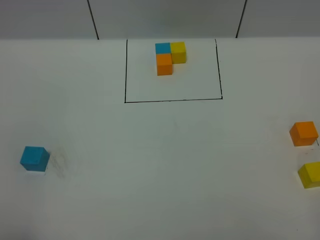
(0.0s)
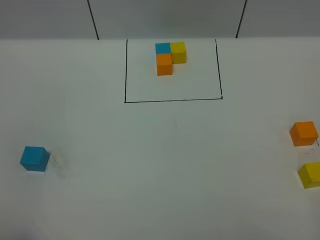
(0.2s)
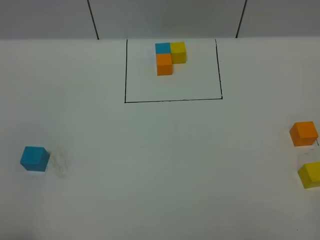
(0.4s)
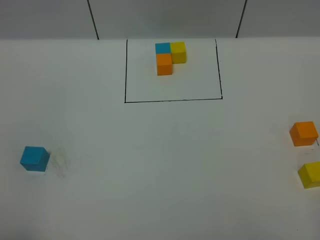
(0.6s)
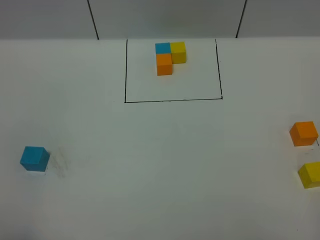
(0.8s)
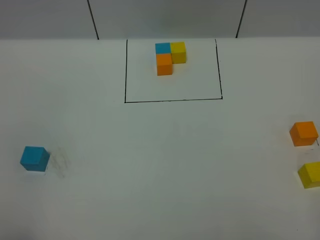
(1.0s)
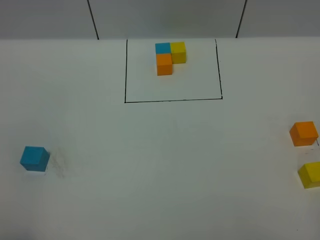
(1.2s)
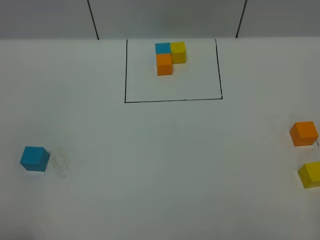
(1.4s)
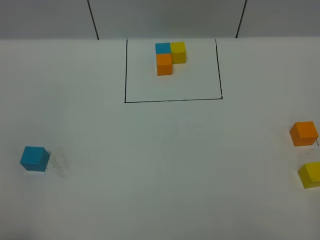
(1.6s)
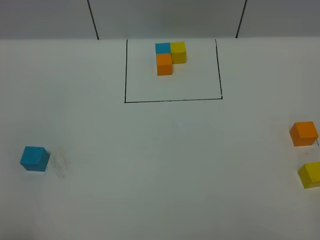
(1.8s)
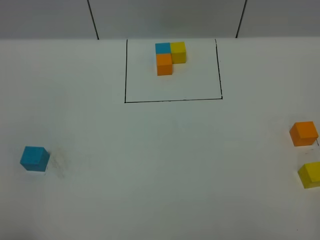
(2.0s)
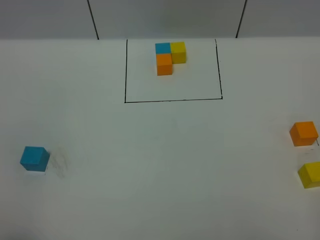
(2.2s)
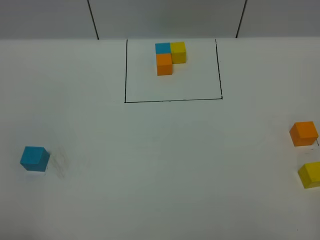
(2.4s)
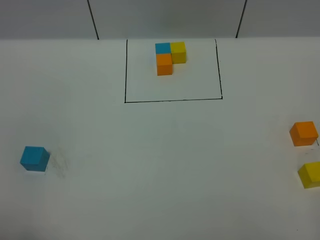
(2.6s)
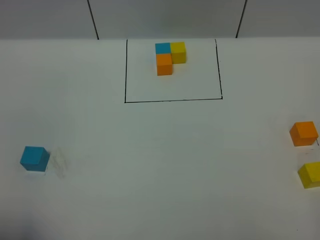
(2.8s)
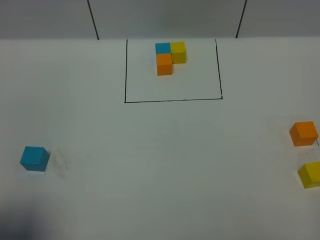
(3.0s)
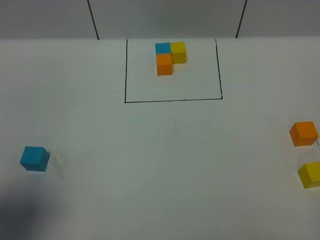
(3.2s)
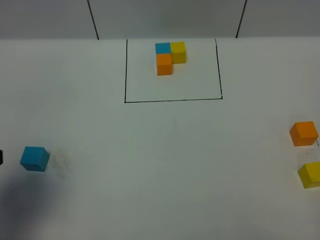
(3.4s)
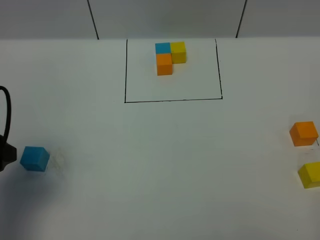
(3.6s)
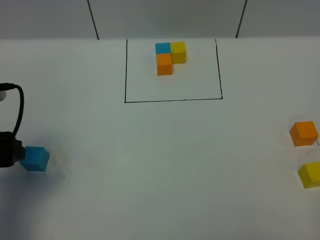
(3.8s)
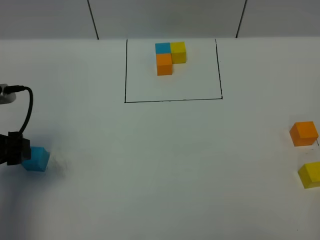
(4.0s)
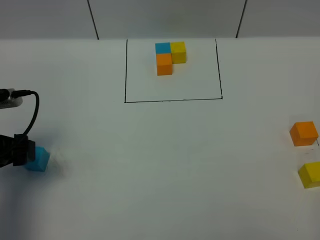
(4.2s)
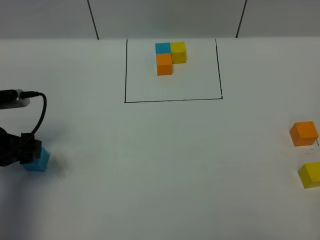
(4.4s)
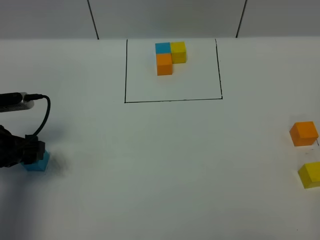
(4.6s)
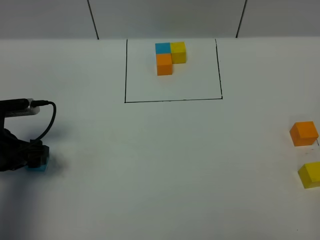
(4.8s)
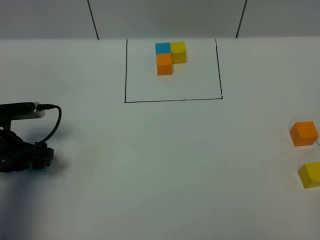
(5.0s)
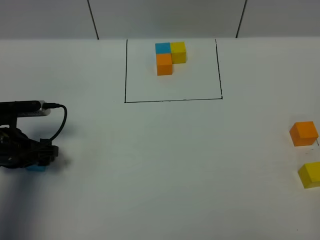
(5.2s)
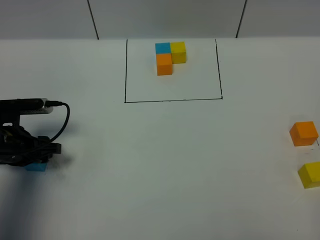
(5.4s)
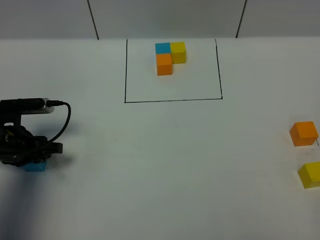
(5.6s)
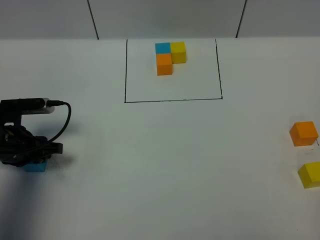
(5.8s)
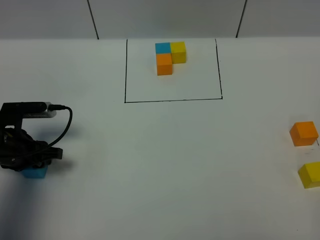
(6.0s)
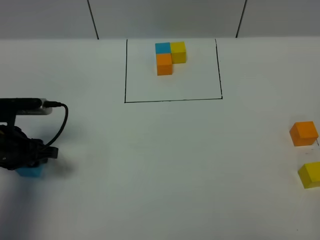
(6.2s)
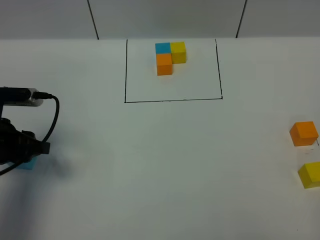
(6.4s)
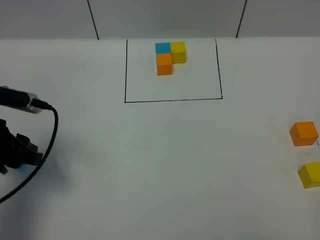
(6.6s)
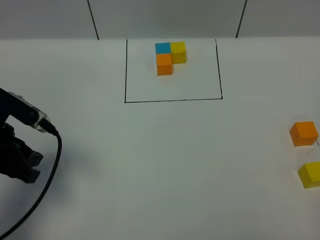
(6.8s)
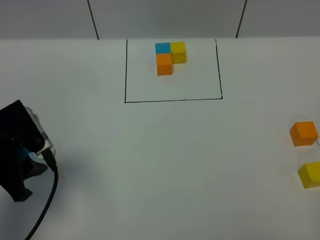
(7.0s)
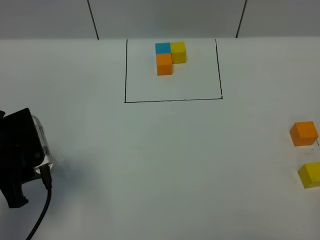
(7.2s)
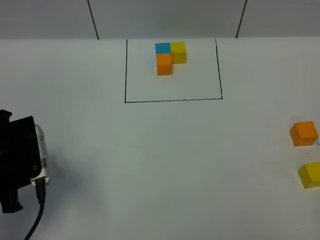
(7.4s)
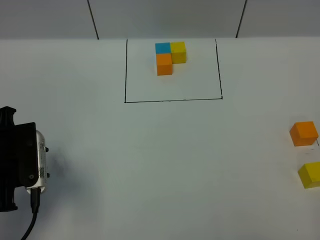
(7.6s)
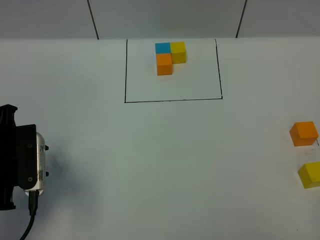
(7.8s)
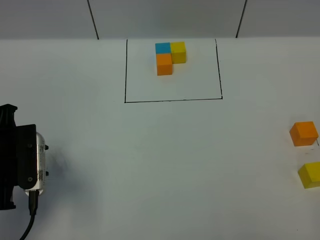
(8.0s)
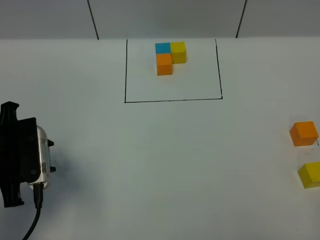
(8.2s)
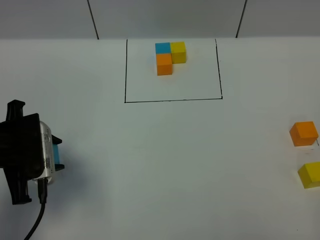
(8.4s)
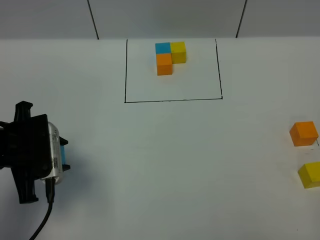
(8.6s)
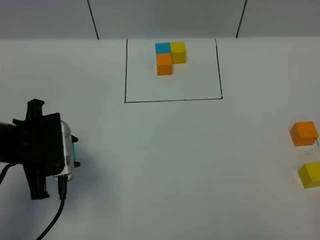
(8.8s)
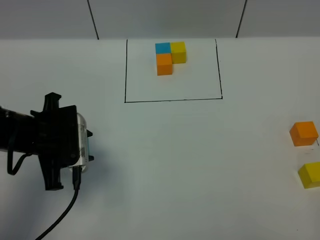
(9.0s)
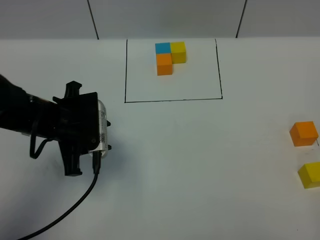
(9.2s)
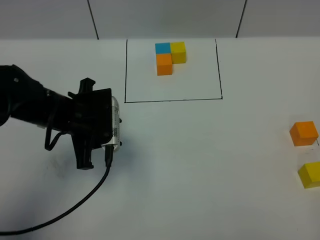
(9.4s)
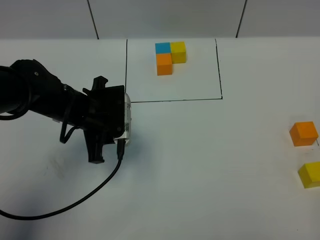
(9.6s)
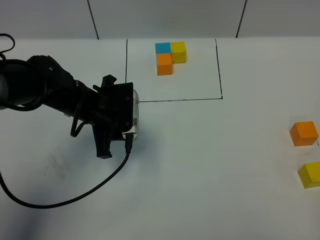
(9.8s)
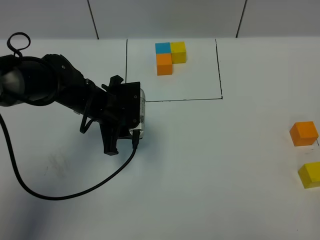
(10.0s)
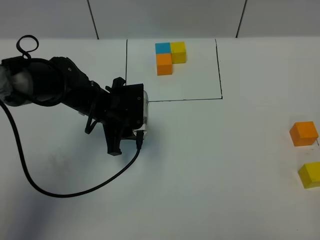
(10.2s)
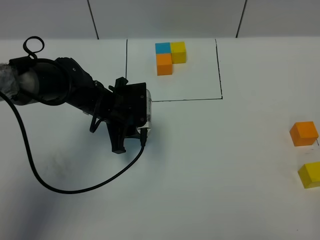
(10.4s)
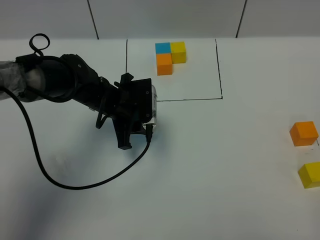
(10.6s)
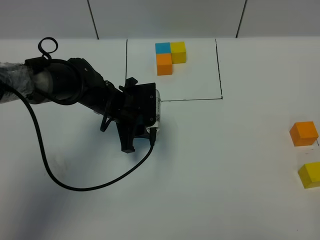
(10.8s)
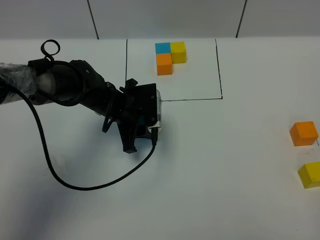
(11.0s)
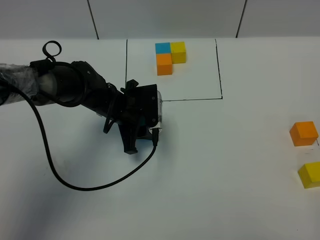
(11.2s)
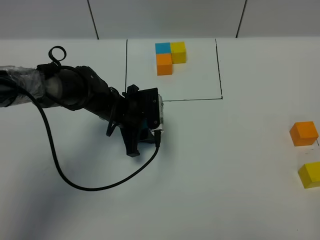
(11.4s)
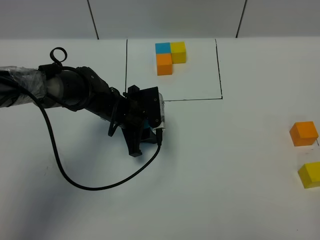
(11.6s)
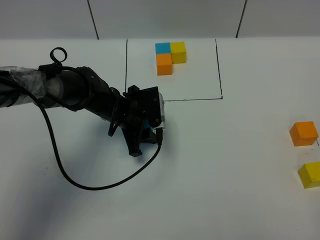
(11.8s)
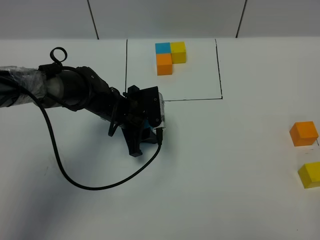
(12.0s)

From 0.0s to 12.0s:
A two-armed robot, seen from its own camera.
Task of the whole recording: According to the building block template in front, assemble the scattered blocks together.
From 0.0s to 1.6s: Both grippers stay put.
From 1.6s to 3.0s: The left gripper heads forward, covering about 5 cm, and opens up.
From 3.0s to 4.4s: The left gripper travels forward and downward by some 25 cm.
From 4.4s to 6.0s: The left gripper shifts roughly 5 cm downward, and closes its fingers.
From 6.0s to 7.6s: The left gripper shifts some 10 cm upward and backward.
From 7.6s to 9.0s: The left gripper moves to the right, roughly 5 cm.
From 9.0s to 10.4s: The left gripper heads forward, to the right and downward, covering about 15 cm.
From 10.4s to 12.0s: There are only small adjustments of the grippers.

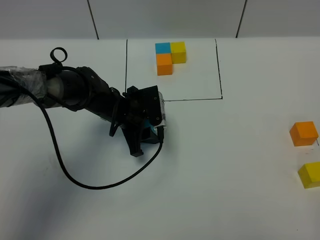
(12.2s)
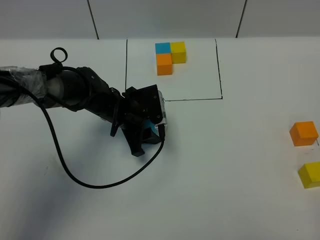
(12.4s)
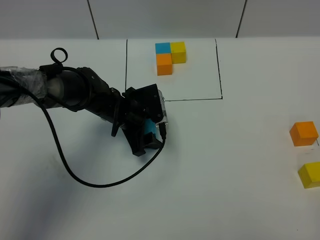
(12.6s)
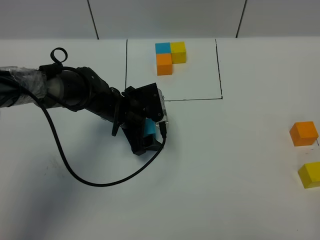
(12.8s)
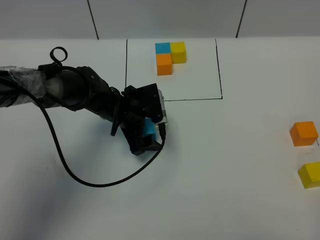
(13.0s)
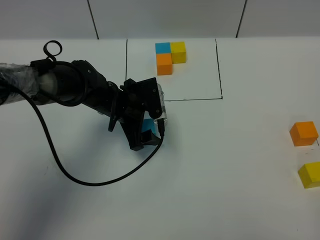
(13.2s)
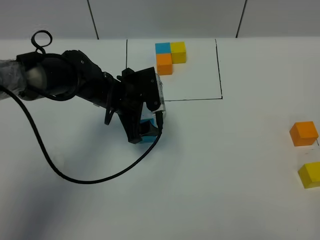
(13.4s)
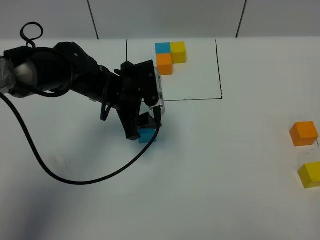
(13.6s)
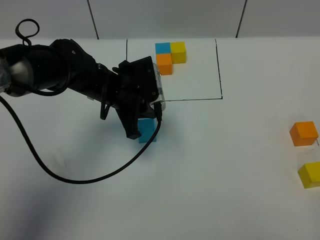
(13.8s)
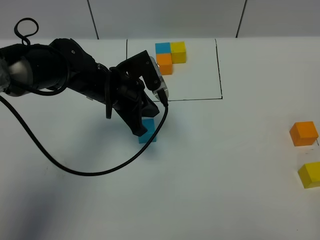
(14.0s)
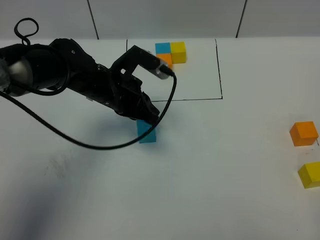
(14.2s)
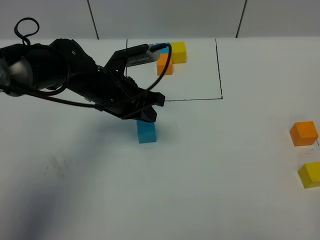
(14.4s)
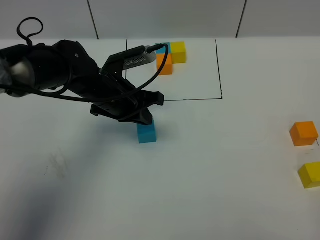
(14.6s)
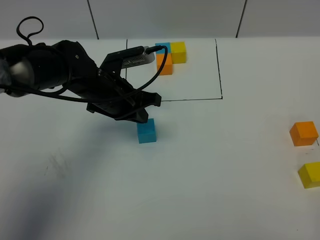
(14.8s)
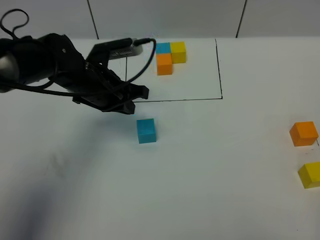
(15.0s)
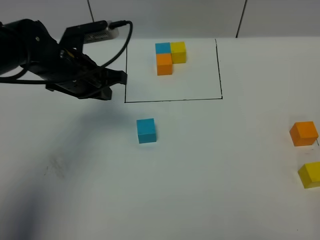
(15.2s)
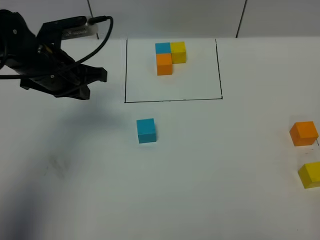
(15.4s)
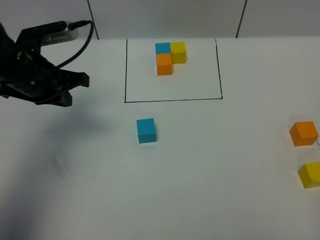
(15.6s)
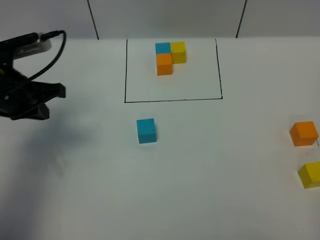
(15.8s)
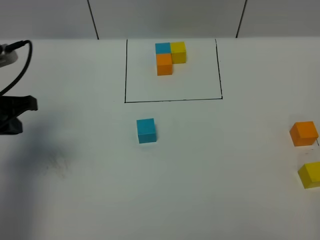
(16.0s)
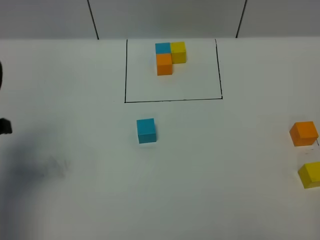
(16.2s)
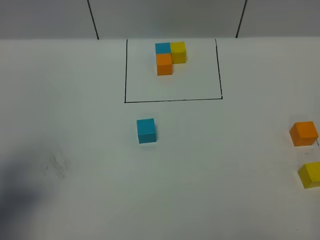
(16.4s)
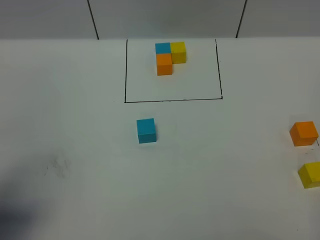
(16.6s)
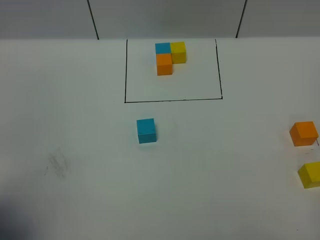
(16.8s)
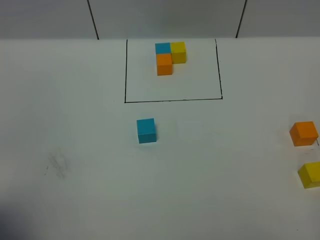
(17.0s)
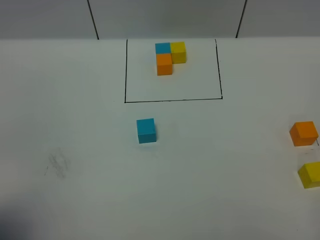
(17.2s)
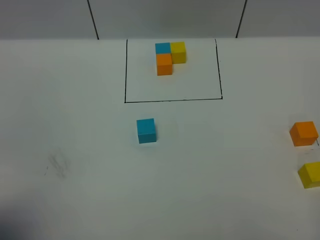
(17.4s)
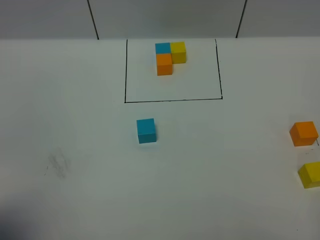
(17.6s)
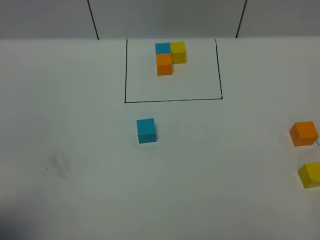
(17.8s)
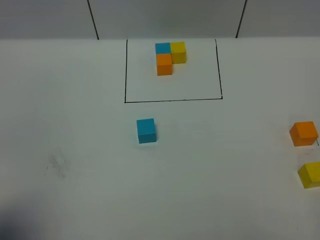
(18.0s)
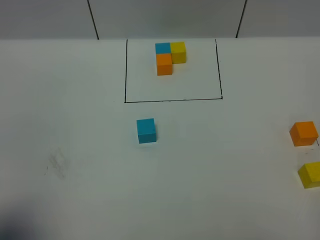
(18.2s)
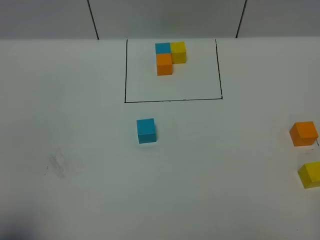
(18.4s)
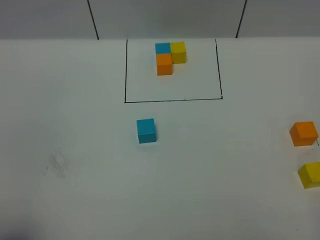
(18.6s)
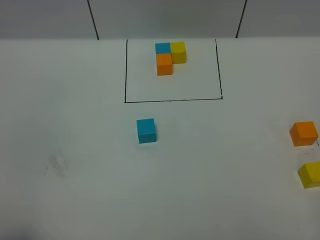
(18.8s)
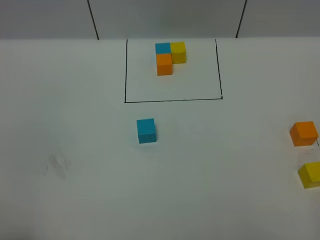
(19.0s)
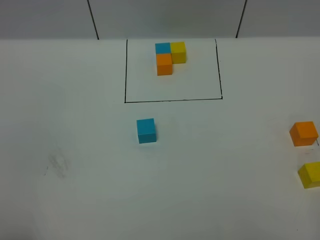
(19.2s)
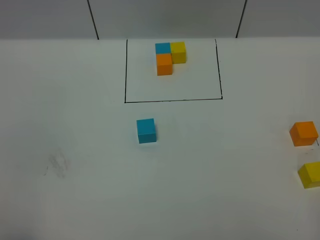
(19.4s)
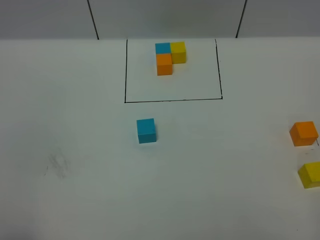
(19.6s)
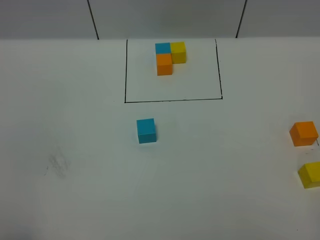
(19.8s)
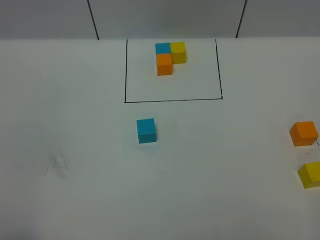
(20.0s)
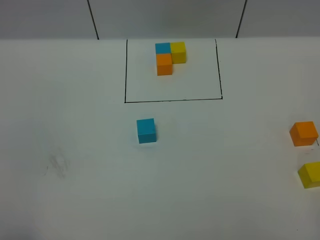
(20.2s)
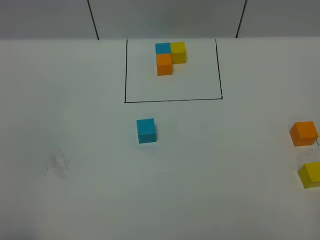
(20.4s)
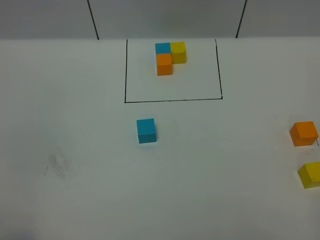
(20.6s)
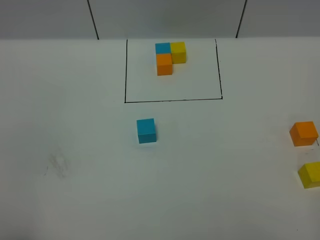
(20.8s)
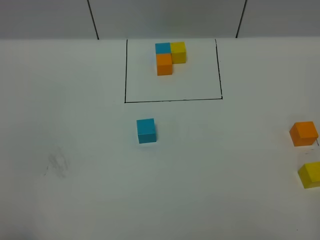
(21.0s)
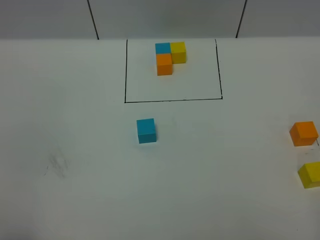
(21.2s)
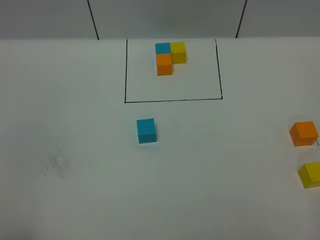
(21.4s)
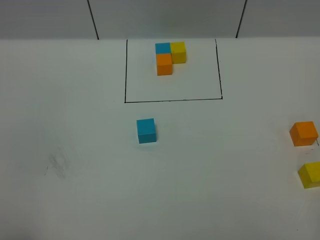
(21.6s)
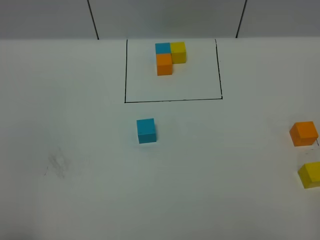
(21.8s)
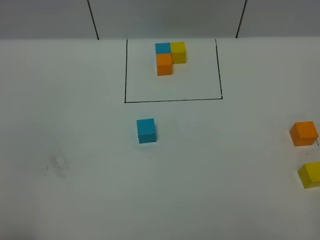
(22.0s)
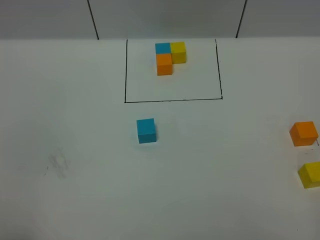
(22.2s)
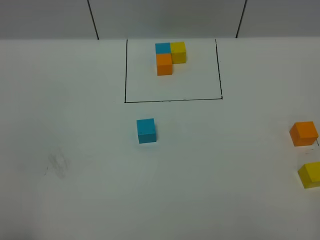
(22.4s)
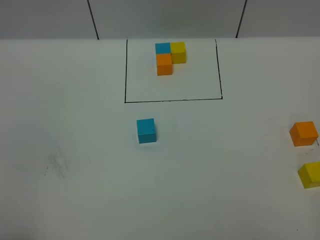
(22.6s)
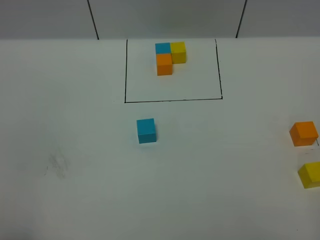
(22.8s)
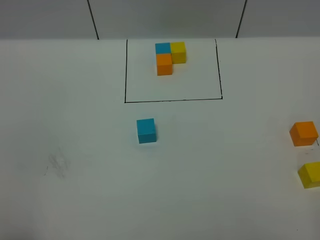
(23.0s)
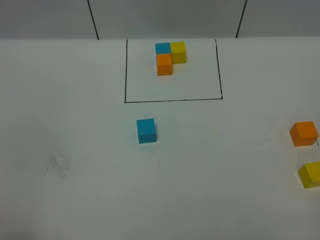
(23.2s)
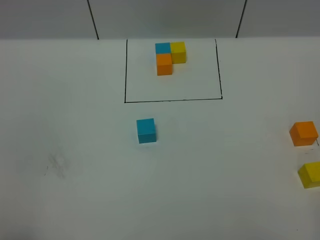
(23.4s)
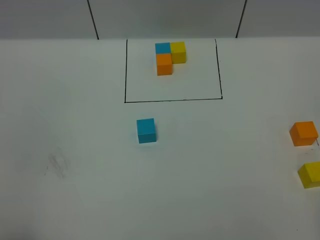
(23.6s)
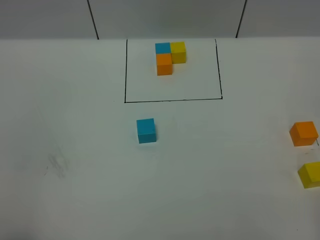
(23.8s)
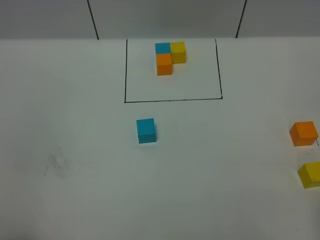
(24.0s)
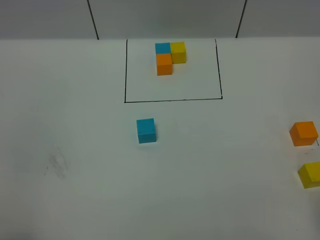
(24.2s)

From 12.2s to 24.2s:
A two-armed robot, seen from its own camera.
Task of the whole recording: According to the building block template in front, assemble the scattered blocks together.
From 12.2s to 13.8s: The left gripper heads upward, covering some 10 cm, and closes up.
From 13.8s to 15.2s: The left gripper shifts roughly 5 cm to the left.
From 15.2s to 16.6s: The left gripper goes roughly 30 cm backward and to the left.
From 16.6s to 18.2s: The left gripper heads backward, covering some 5 cm.
From 18.2s to 19.8s: The left gripper travels backward by roughly 5 cm.
From 19.8s to 22.6s: Both grippers stay put.
